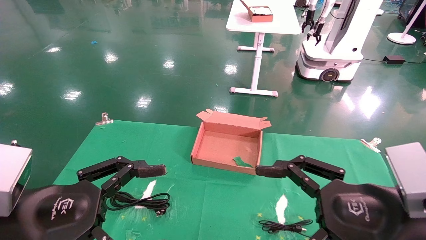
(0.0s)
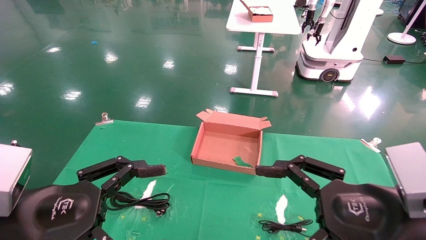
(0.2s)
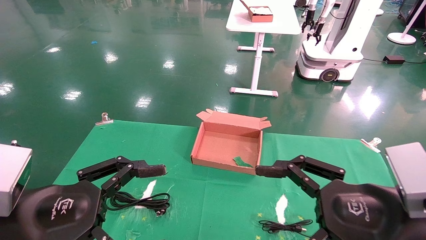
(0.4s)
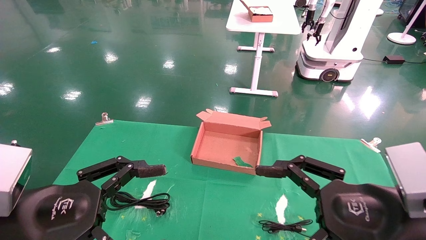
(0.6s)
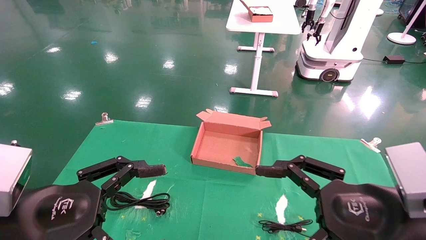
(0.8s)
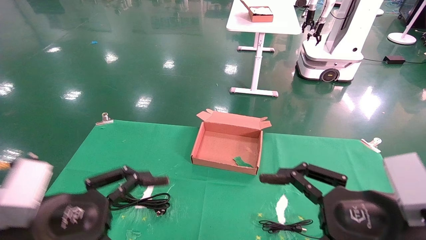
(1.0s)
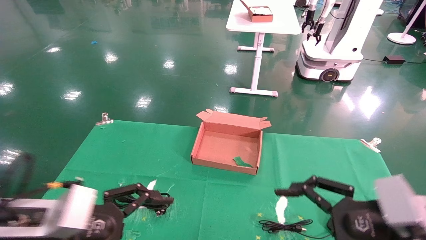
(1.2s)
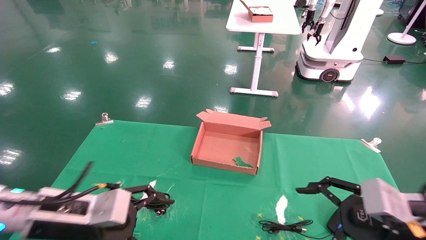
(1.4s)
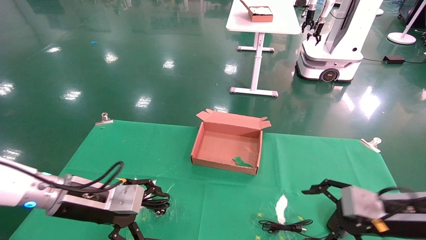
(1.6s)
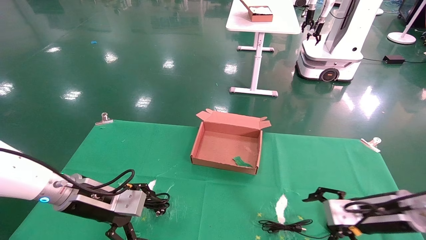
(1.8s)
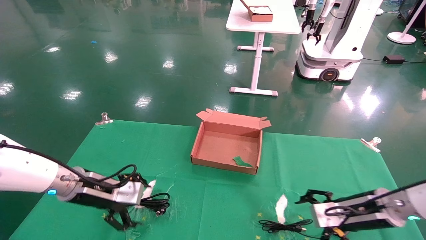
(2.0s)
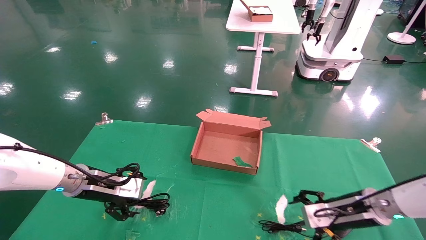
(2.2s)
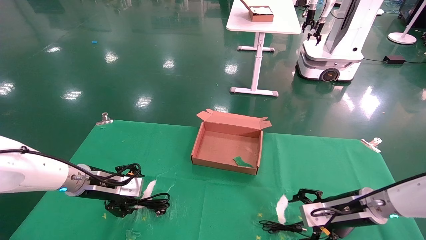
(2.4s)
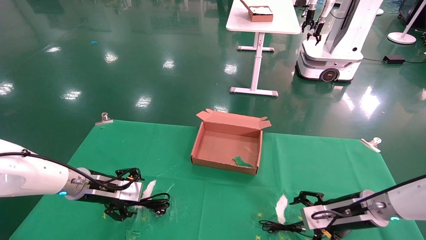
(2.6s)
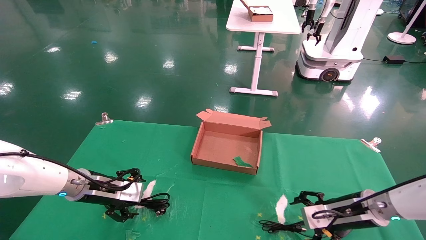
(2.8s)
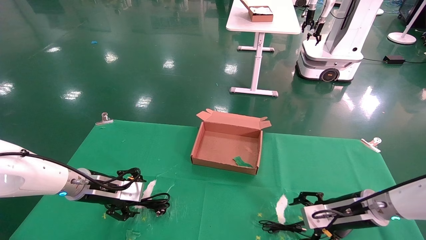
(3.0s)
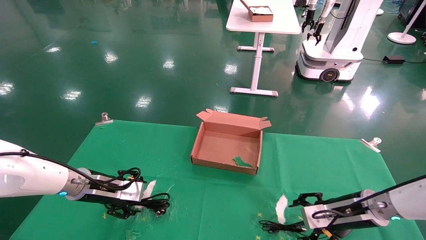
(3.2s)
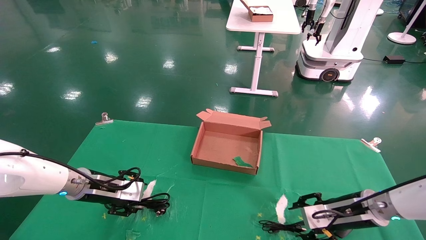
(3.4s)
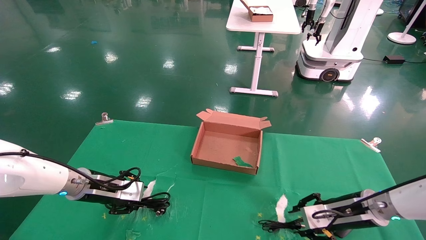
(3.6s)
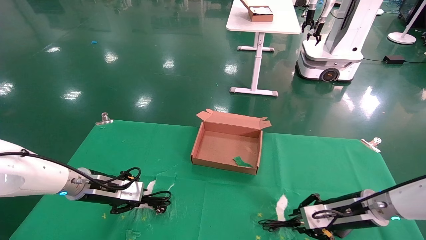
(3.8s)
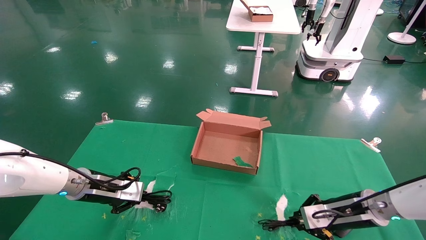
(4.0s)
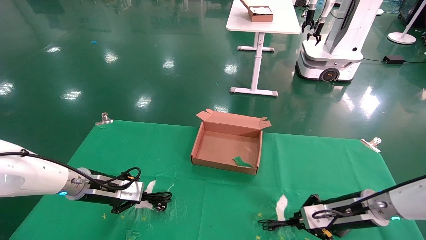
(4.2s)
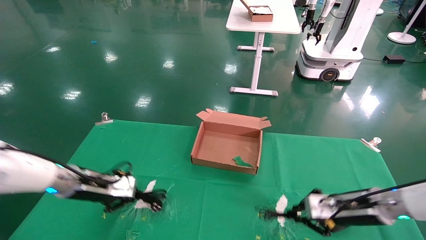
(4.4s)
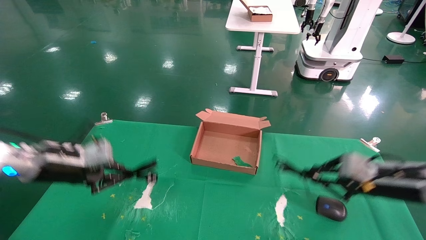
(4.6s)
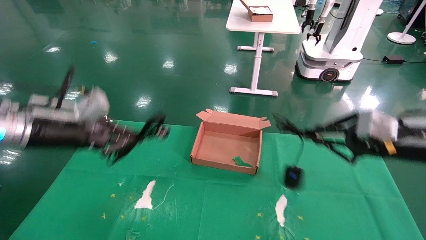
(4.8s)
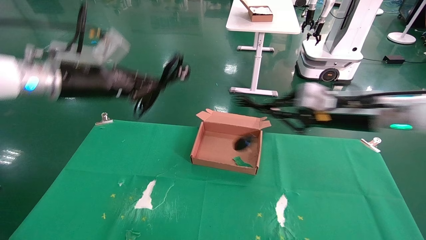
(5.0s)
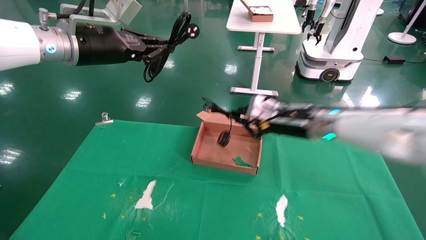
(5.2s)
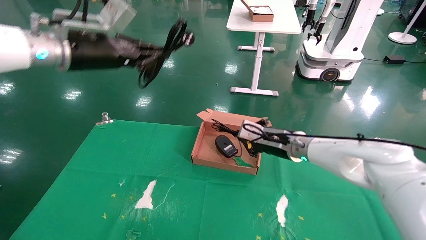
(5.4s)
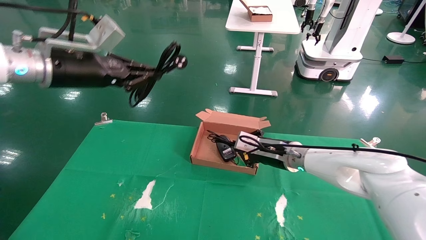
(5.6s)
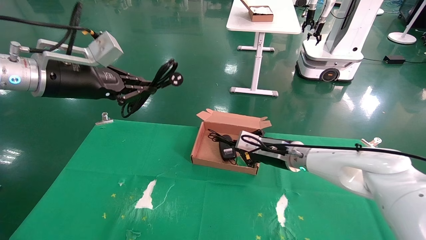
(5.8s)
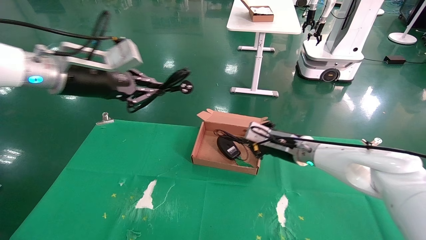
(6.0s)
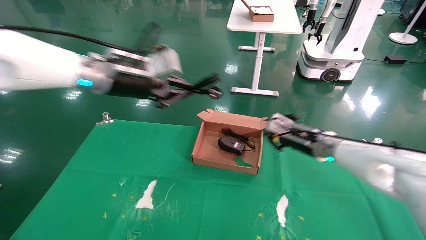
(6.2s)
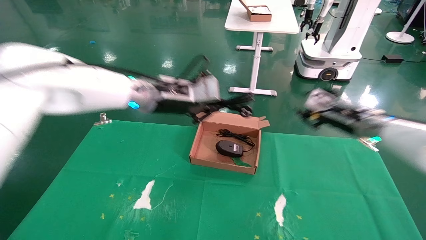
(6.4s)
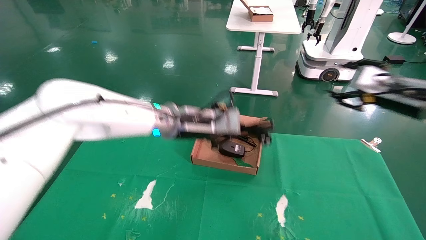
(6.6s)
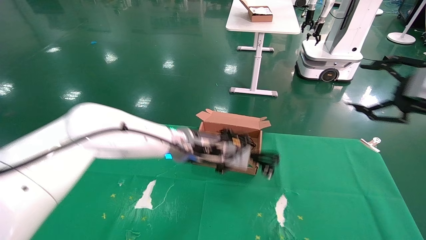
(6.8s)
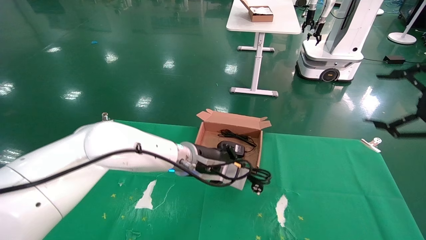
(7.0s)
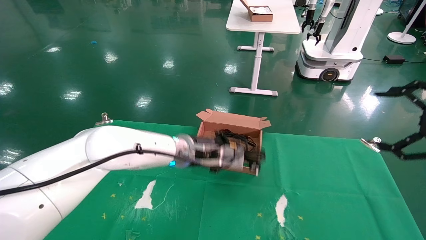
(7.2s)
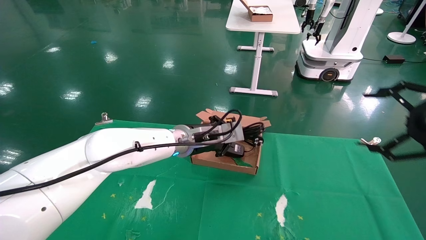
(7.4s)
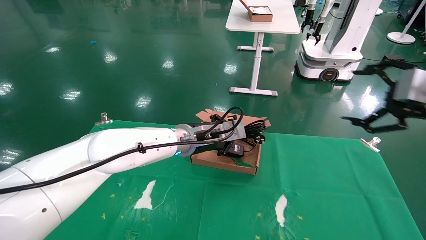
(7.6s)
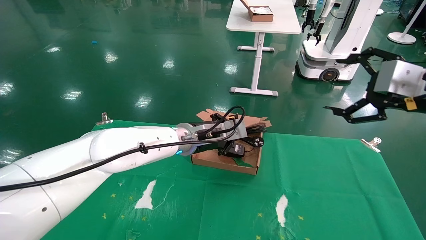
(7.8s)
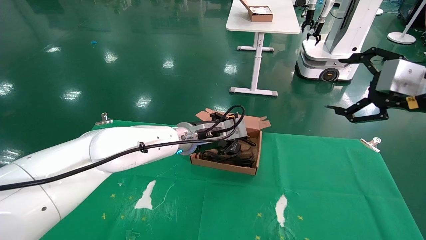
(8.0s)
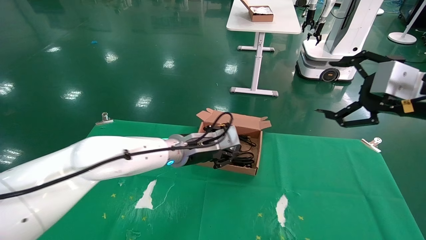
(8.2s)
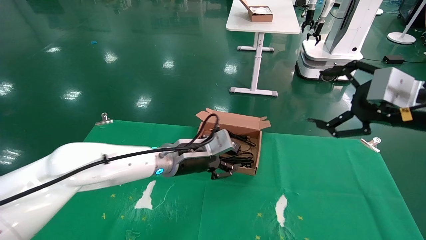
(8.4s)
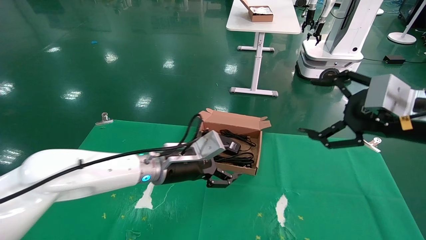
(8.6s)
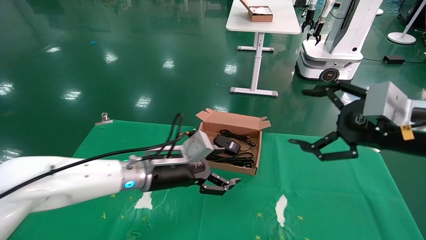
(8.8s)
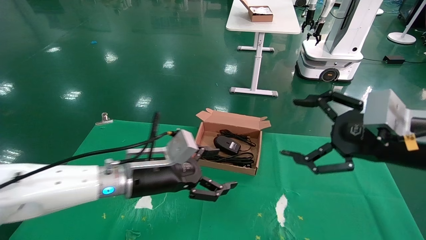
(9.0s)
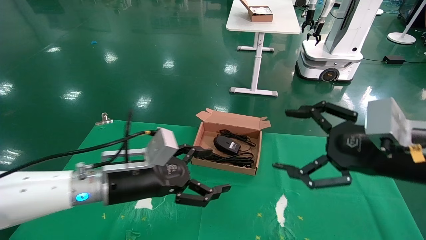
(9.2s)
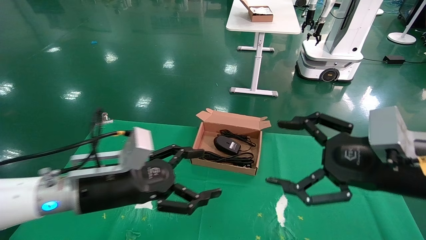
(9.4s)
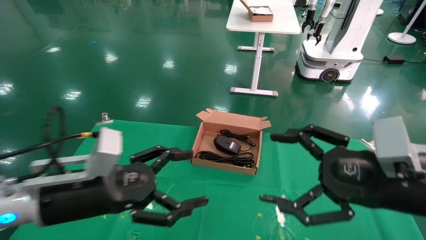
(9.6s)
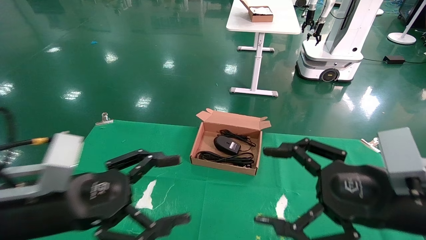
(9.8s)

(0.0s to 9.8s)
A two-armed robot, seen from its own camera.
Step, 1.2s - 4.0s: Grab and lift both the mouse and power cord from the accessory packaging area at the same time.
Step, 4.2s - 8.2s: Place the mouse and power cord into the box.
0.0s - 1.4s: The left gripper shifts about 10 cm forward; the right gripper goes about 10 cm forward and to the right.
1.4s - 2.8s: The left gripper shifts roughly 15 cm forward. Meanwhile the right gripper heads forward and downward, covering about 15 cm.
2.8s - 4.2s: The right gripper closes up. The left gripper closes its fingers.
4.2s - 5.6s: The right gripper is displaced to the left, forward and upward by some 20 cm. The left gripper shifts about 25 cm upward.
5.6s - 7.0s: The right gripper shifts roughly 35 cm to the right, backward and upward, and opens up. Meanwhile the left gripper moves to the right and downward, approximately 30 cm.
7.0s - 8.4s: The left gripper opens its fingers. The right gripper travels to the left by roughly 10 cm.
8.4s - 9.8s: The left gripper heads backward and to the left, covering roughly 25 cm, and opens its fingers; the right gripper is displaced downward, backward and to the left by approximately 15 cm.

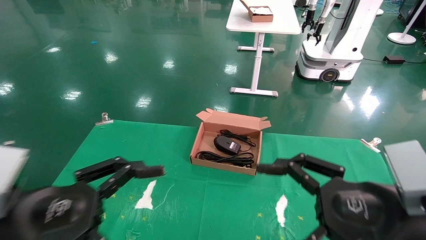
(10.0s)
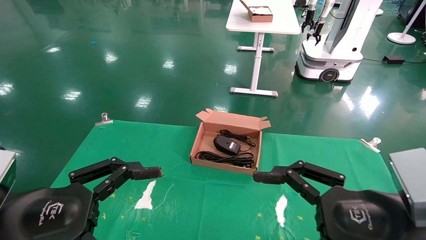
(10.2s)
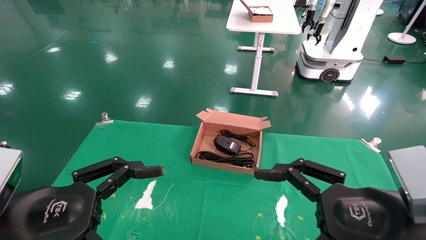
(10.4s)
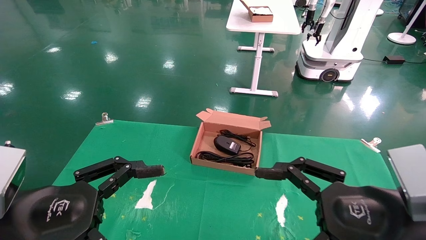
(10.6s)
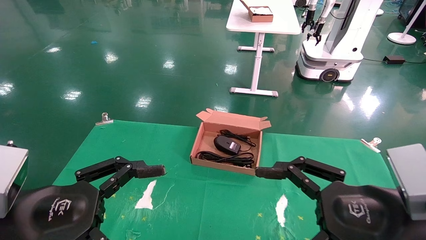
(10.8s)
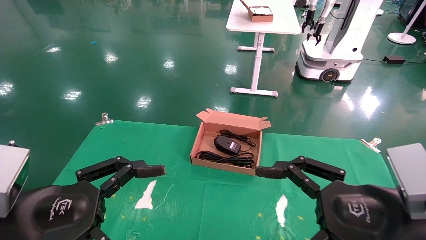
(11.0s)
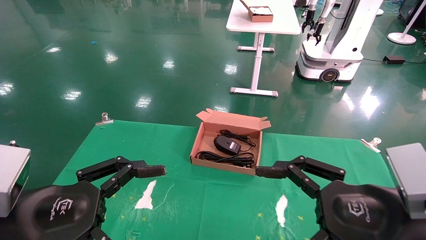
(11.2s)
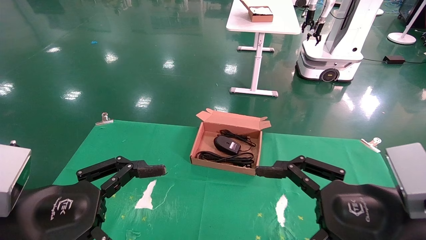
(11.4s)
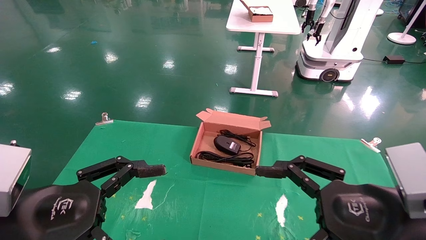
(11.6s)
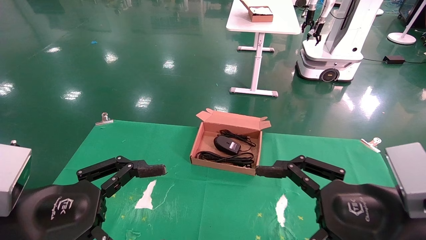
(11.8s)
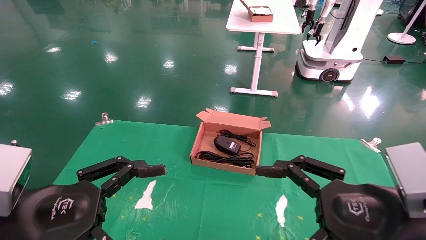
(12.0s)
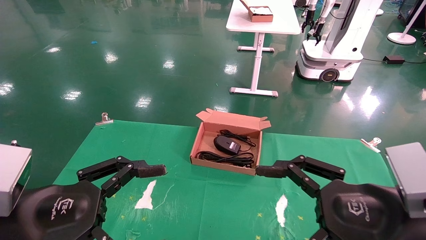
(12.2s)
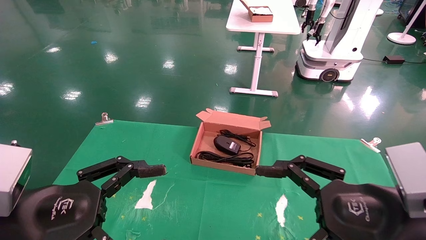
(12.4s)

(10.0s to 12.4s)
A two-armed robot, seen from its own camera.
10.0s - 11.2s: The grippers move only a little.
11.2s - 12.4s: Both grippers stay put.
